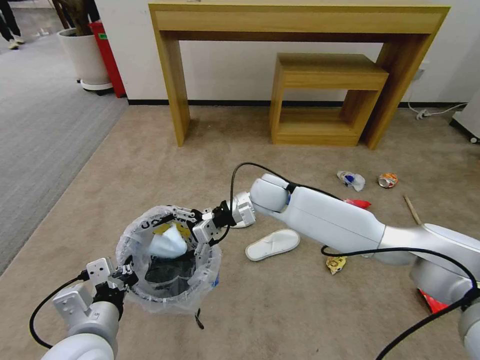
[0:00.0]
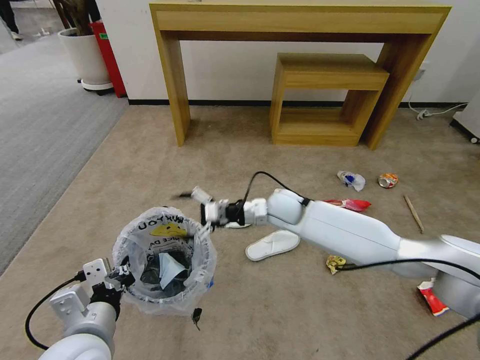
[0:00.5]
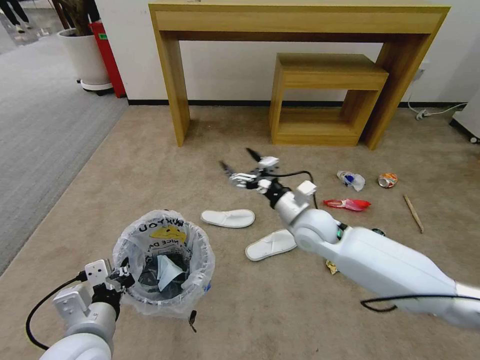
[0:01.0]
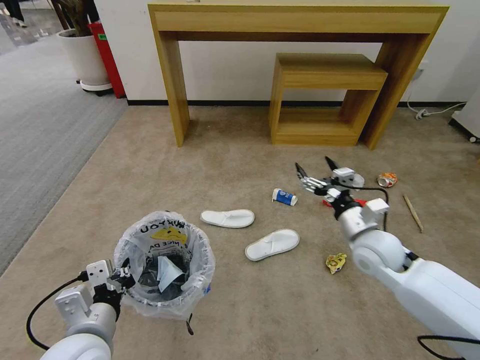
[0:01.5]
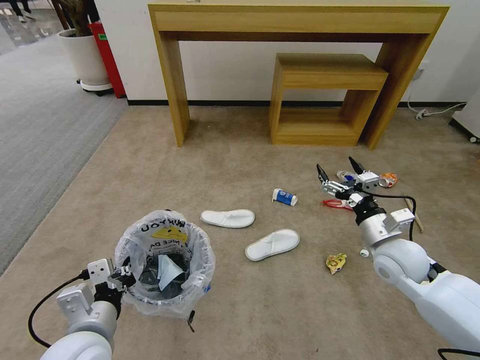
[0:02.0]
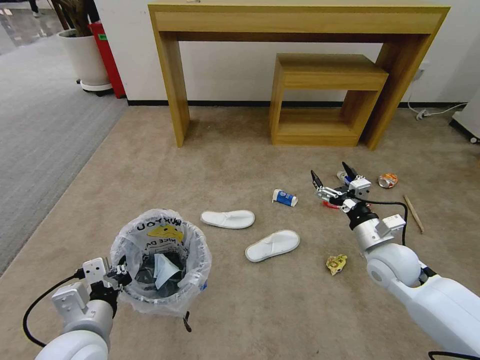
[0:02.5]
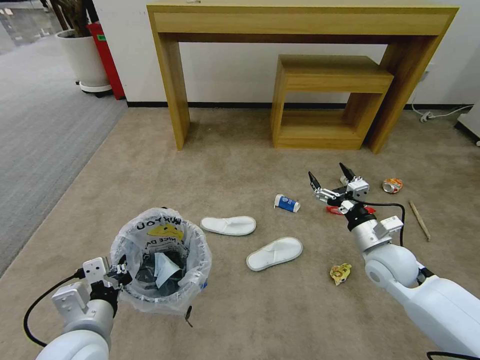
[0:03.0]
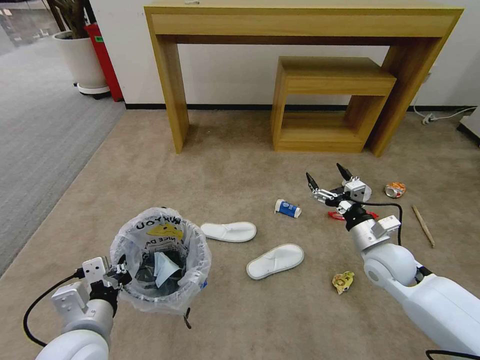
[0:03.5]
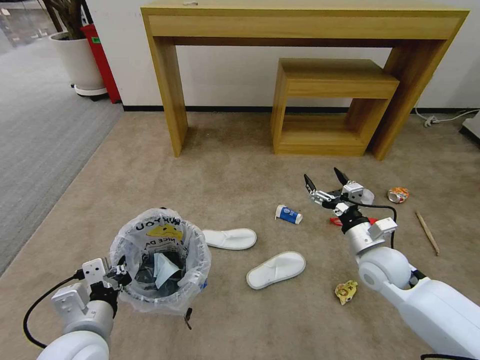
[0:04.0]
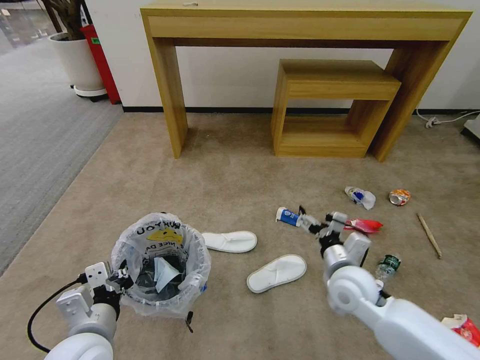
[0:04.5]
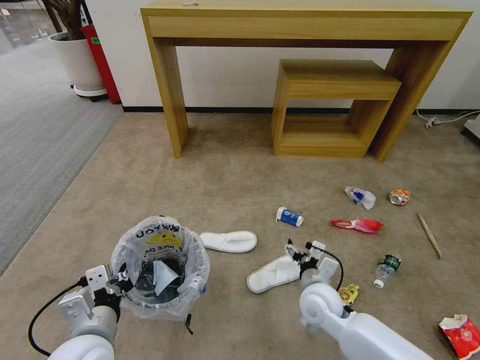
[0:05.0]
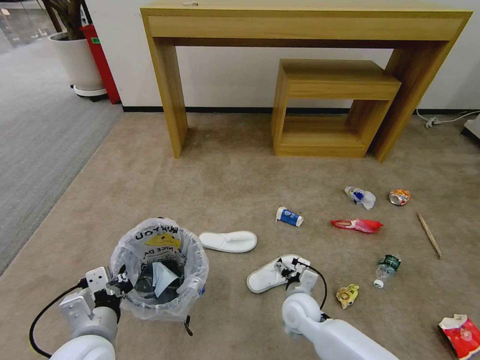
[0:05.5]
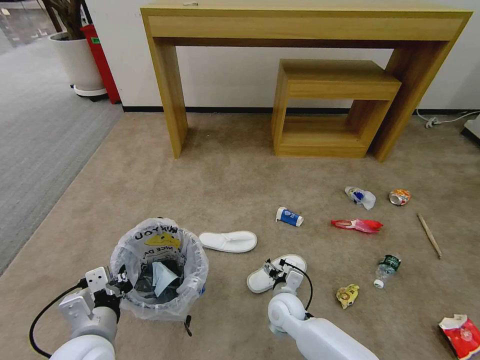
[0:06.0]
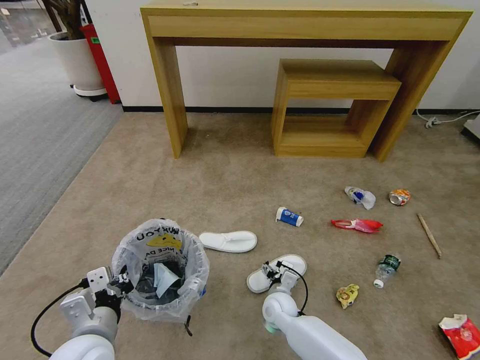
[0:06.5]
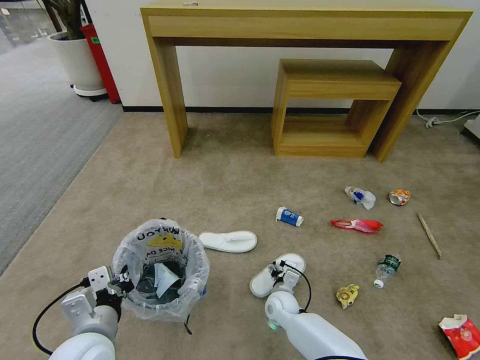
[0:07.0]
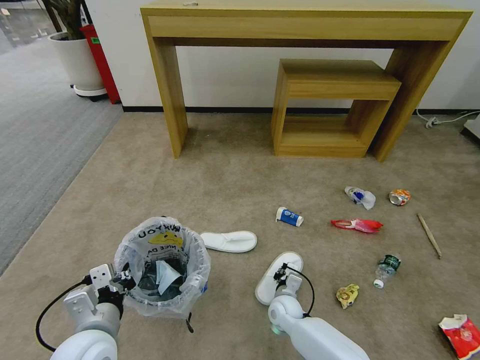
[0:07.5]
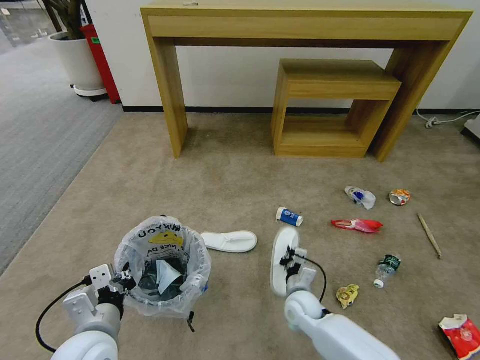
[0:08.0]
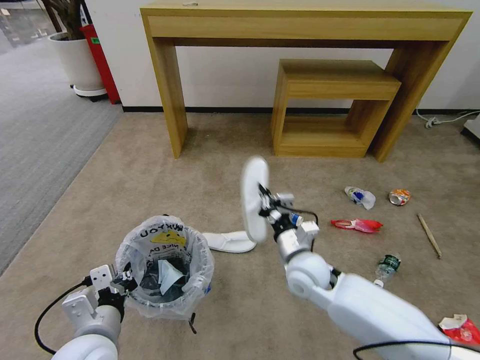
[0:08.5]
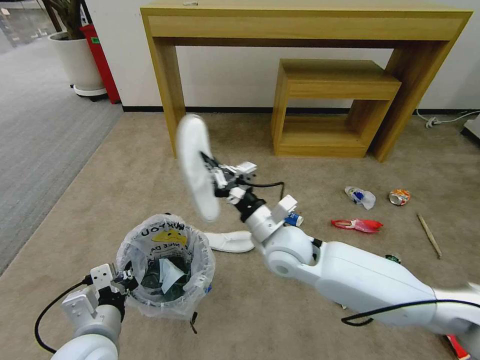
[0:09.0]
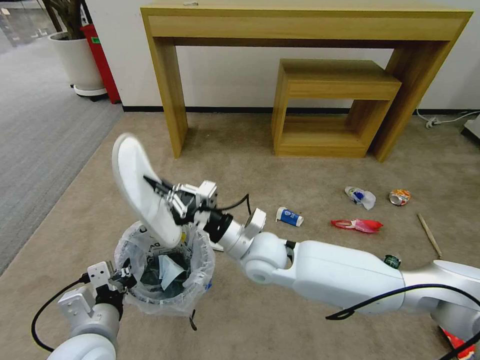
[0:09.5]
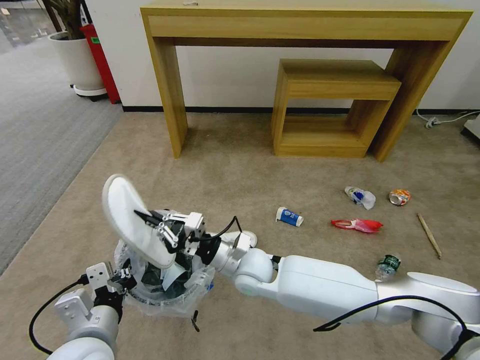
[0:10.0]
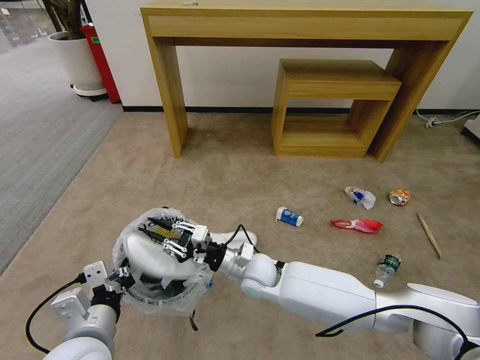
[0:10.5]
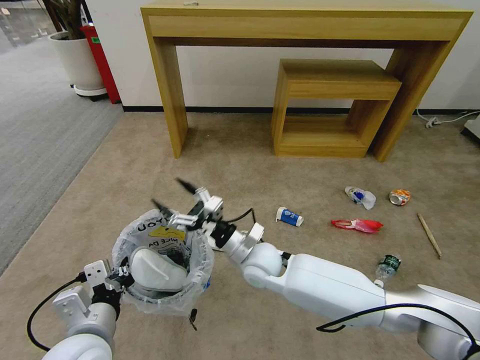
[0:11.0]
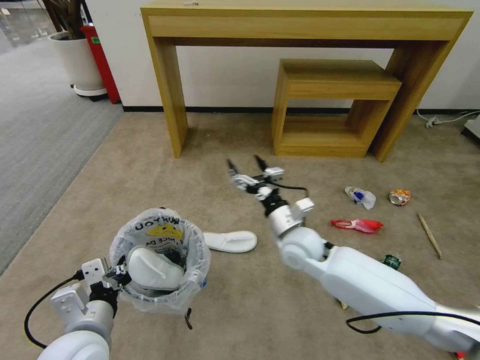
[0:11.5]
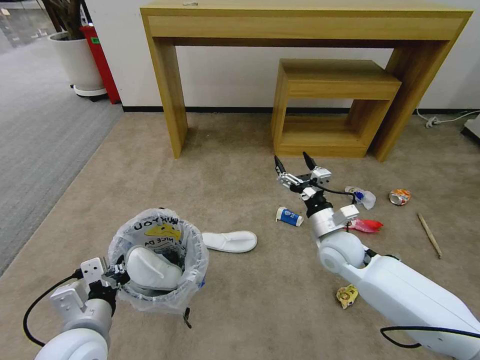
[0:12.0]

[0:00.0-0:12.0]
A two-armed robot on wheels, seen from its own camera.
Task of the whole recording: Pick up the trash bin and place the garbage on the floor into it.
0:00.0 to 0:02.0: The right gripper moves to the right and backward, approximately 30 cm.
0:04.0 to 0:06.0: The right gripper travels to the left and downward by roughly 25 cm.
0:06.0 to 0:08.0: The right gripper closes.
0:08.0 to 0:10.0: The right gripper is displaced upward and to the left by some 20 cm.
0:10.0 to 0:12.0: The right gripper shifts roughly 20 cm to the right, and opens up.

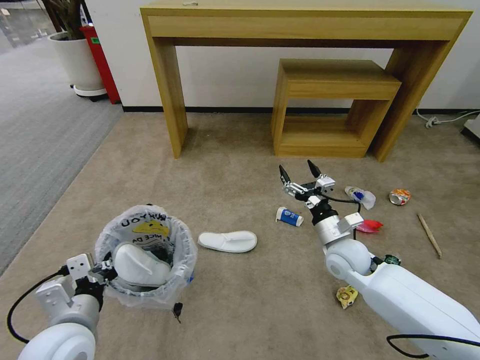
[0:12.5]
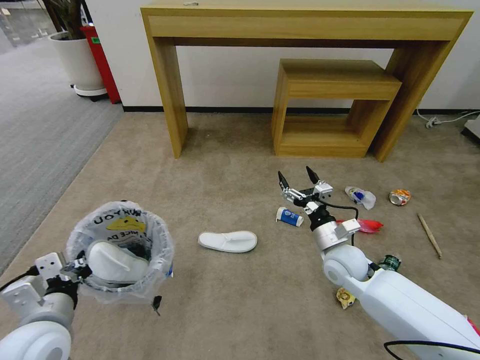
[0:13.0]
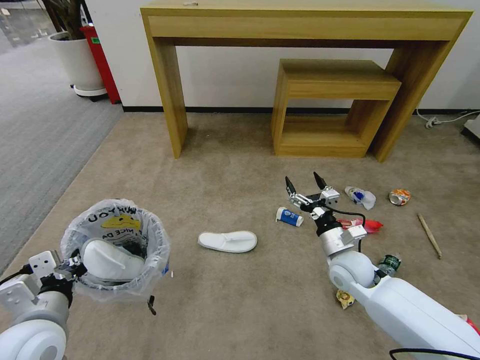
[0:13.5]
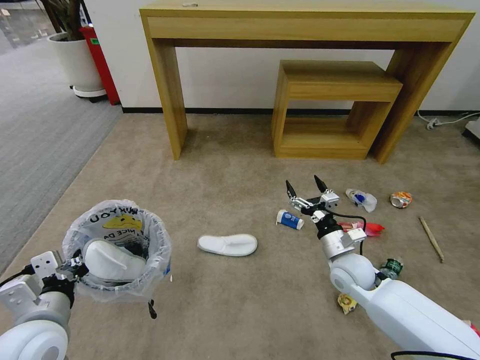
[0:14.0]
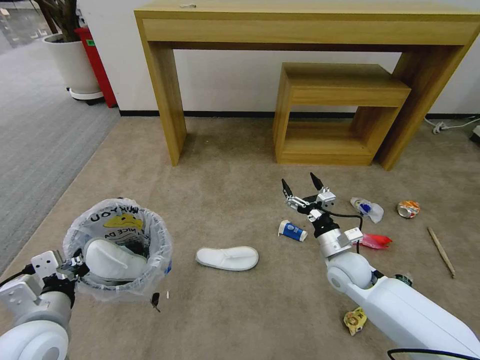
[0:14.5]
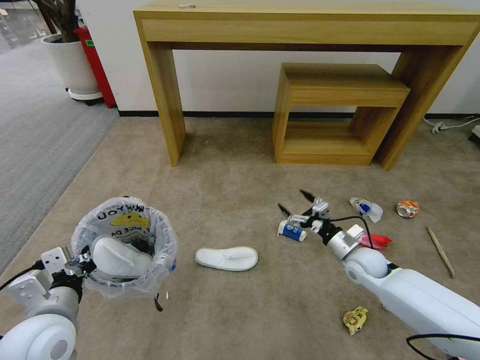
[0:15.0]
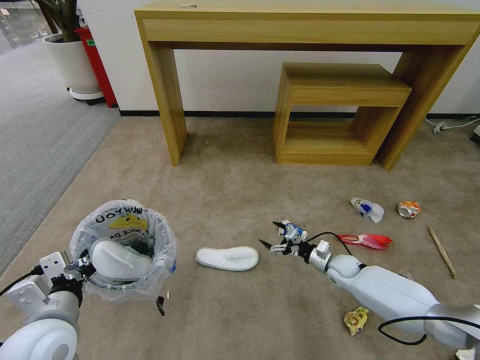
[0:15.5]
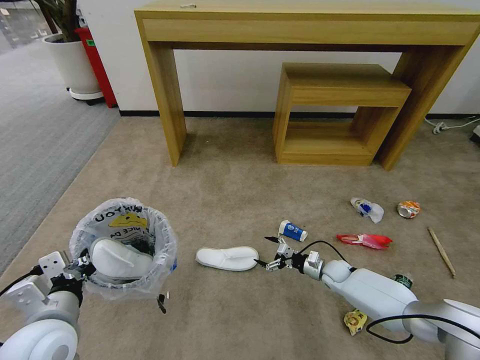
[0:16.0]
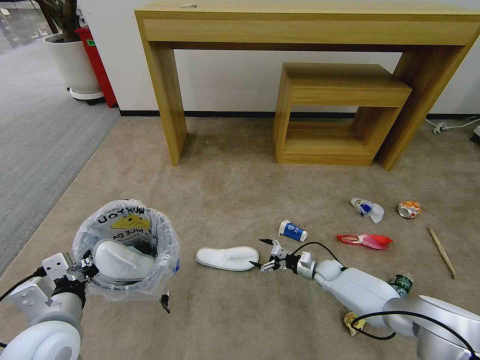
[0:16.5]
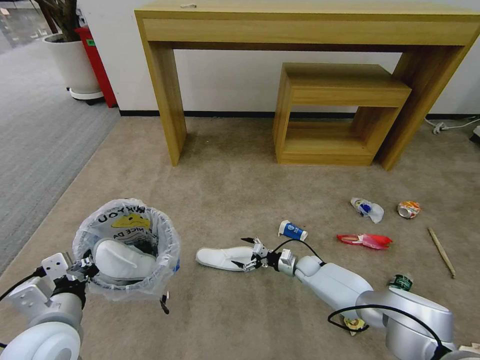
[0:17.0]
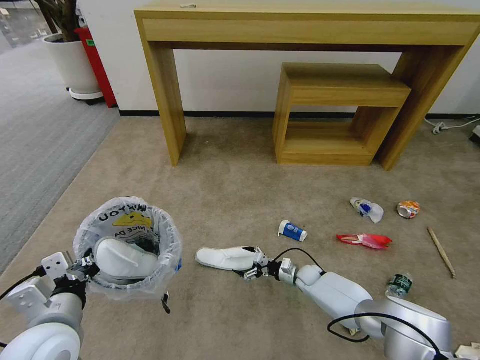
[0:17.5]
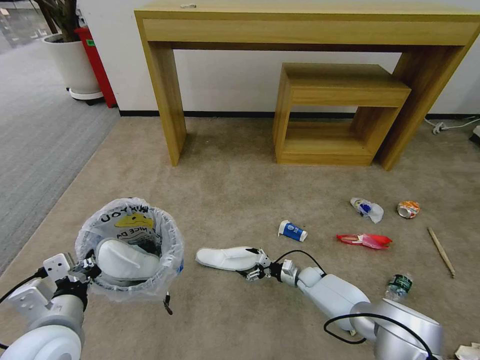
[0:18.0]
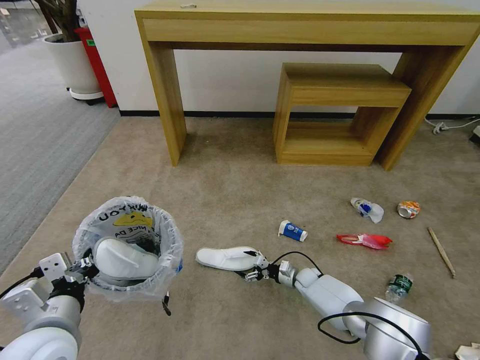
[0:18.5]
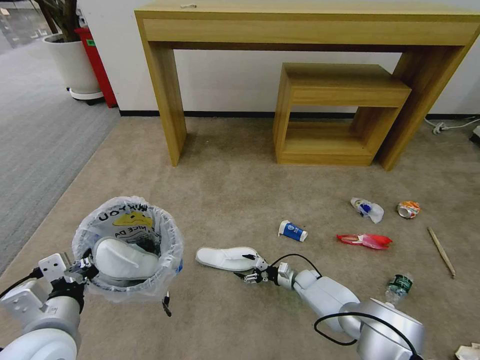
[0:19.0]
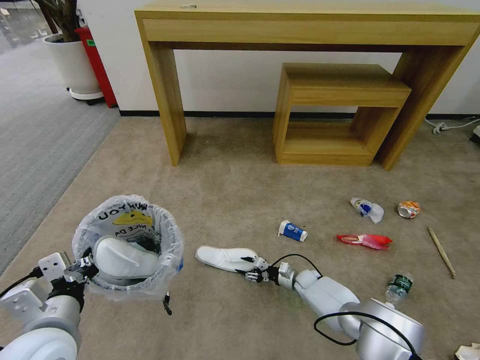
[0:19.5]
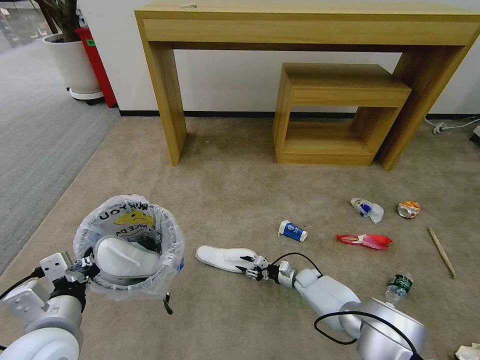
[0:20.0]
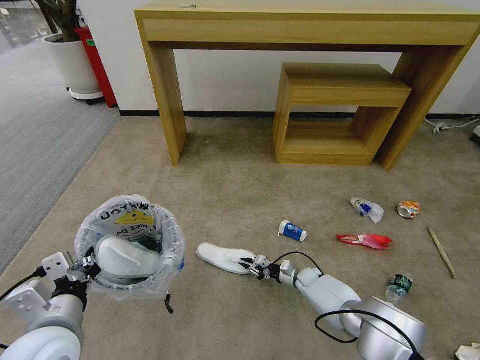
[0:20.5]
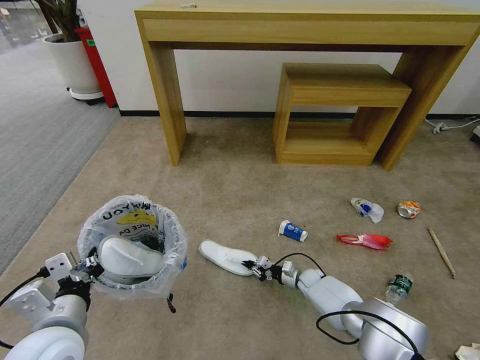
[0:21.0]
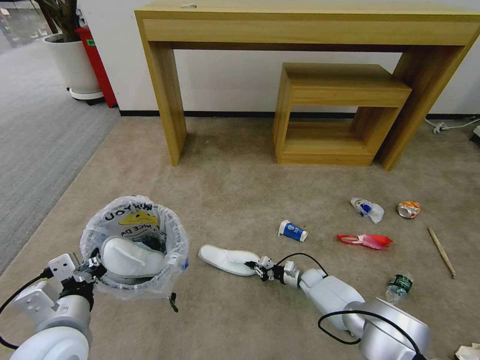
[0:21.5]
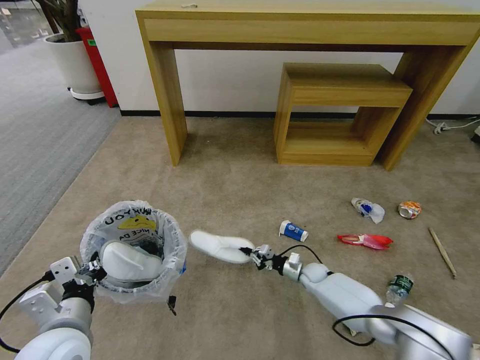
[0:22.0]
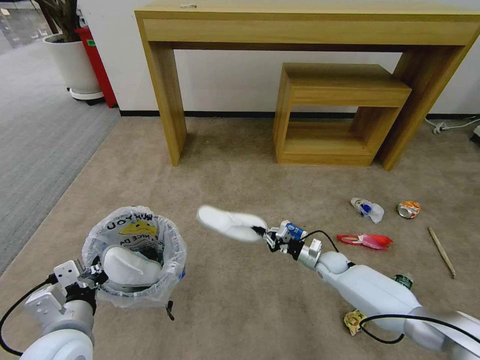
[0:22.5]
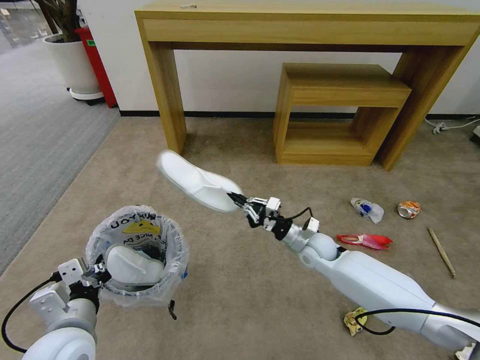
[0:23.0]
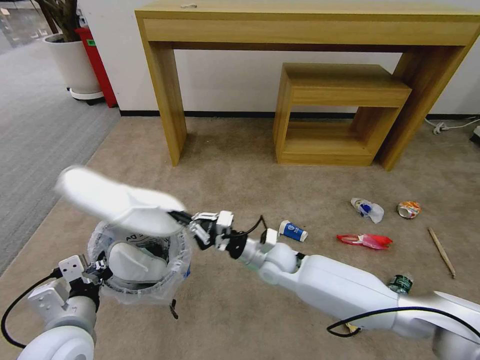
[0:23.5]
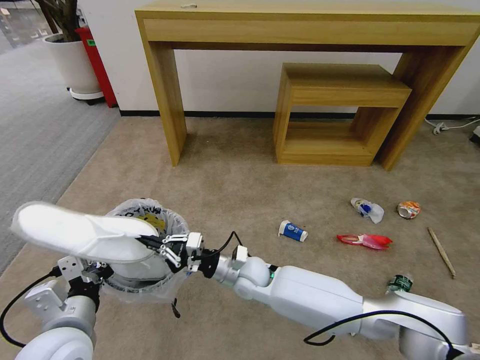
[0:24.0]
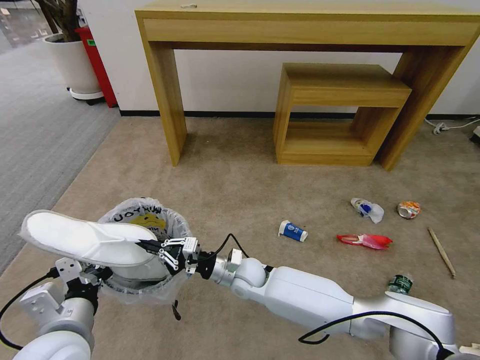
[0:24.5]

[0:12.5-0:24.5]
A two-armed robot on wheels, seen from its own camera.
Task of the whole recording: Pick up the trash bin and place the garbage on the floor into it.
0:14.5 to 0:16.5: The right gripper is displaced downward and forward by about 20 cm.
0:16.5 to 0:18.5: The right gripper travels to the left by about 5 cm.
0:18.5 to 0:20.5: The right gripper closes up.
0:20.5 to 0:22.5: The right gripper heads upward, covering about 10 cm.
0:22.5 to 0:24.5: The right gripper shifts roughly 30 cm to the left.

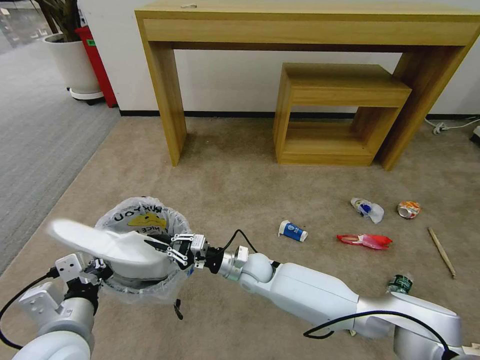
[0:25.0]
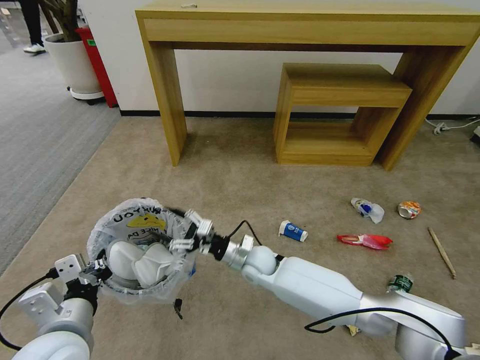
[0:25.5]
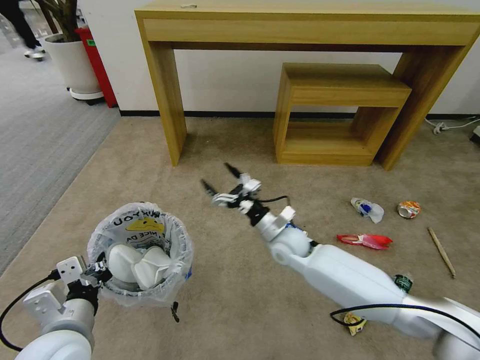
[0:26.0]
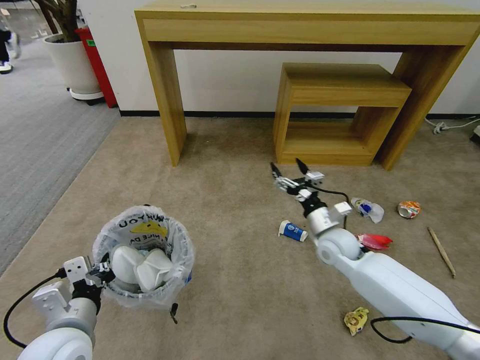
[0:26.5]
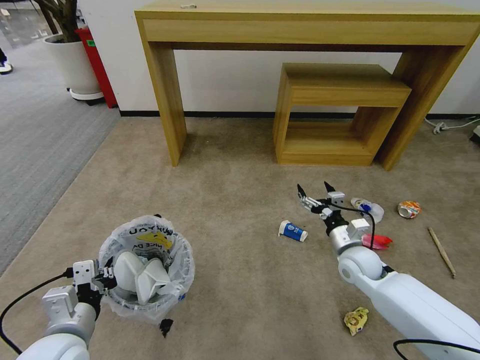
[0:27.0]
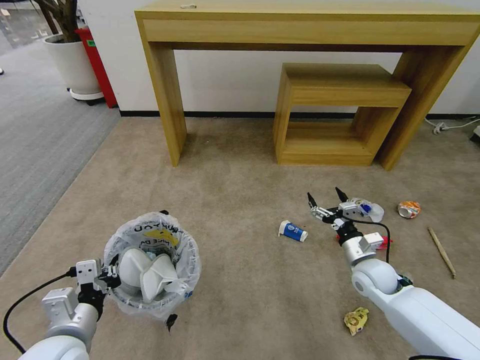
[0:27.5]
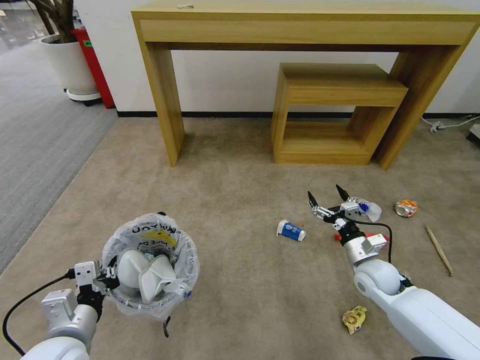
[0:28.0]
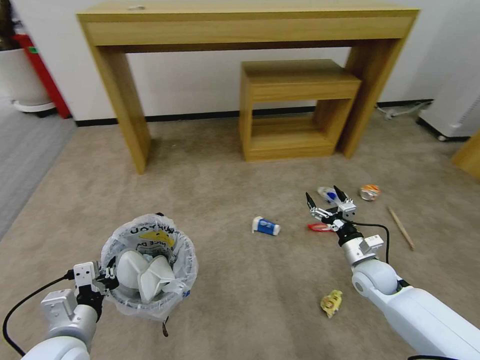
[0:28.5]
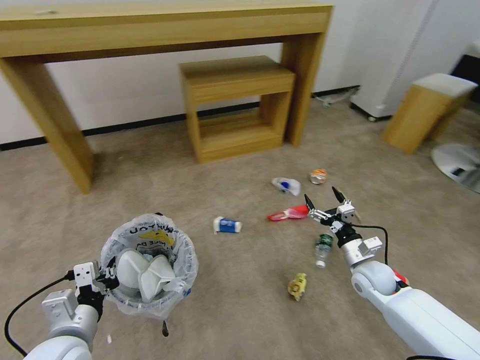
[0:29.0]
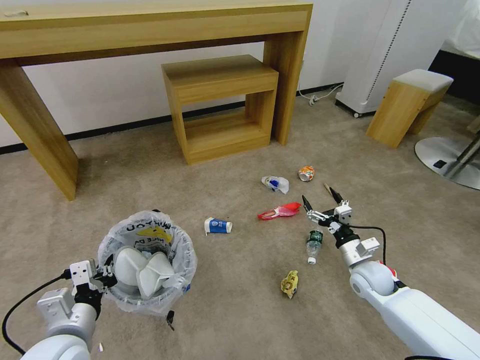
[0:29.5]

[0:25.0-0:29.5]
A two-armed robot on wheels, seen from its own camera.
Task of the whole recording: Pick up the trash bin and place the garbage on the floor into it.
0:25.0 to 0:27.0: The right gripper shifts some 25 cm to the right, and opens up.
0:27.0 to 0:29.5: The right gripper changes place by some 5 cm.
